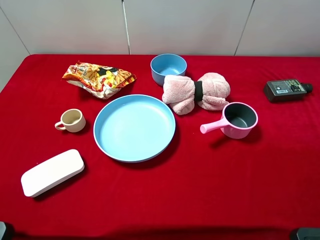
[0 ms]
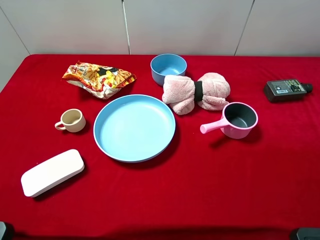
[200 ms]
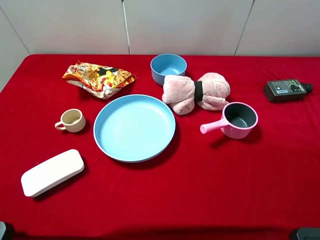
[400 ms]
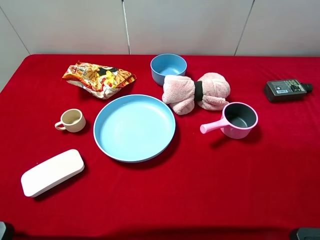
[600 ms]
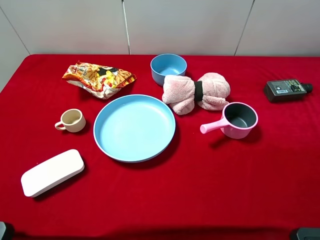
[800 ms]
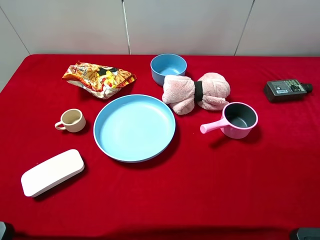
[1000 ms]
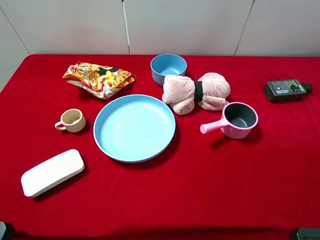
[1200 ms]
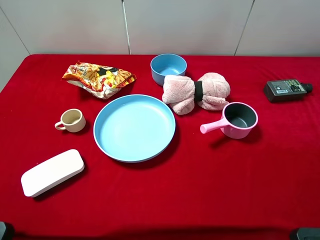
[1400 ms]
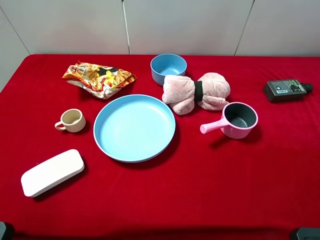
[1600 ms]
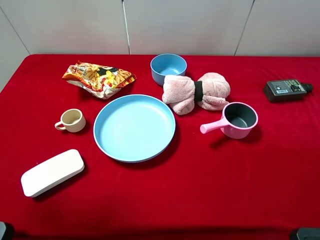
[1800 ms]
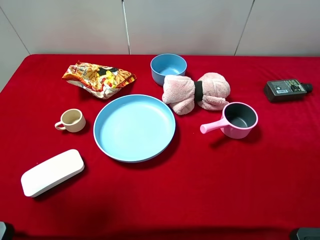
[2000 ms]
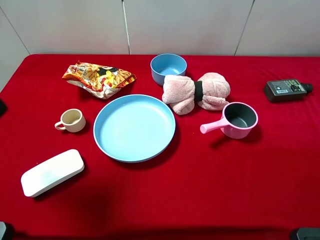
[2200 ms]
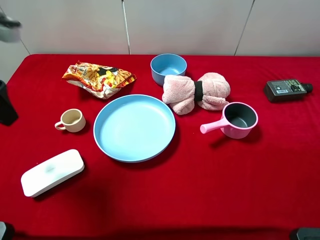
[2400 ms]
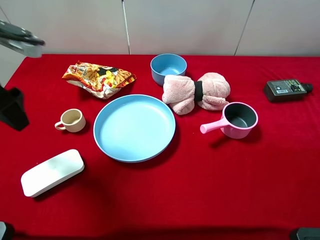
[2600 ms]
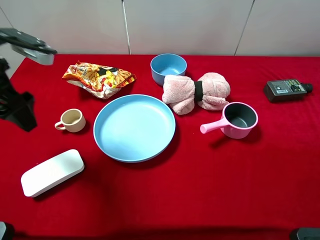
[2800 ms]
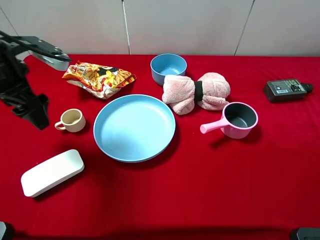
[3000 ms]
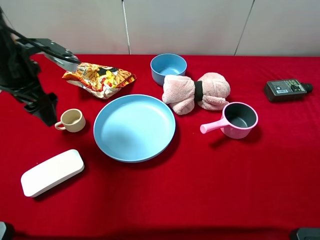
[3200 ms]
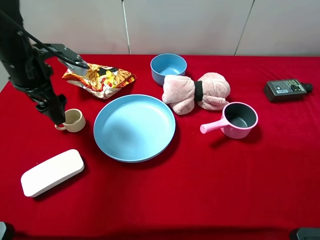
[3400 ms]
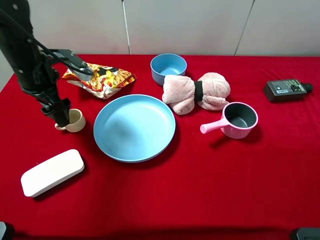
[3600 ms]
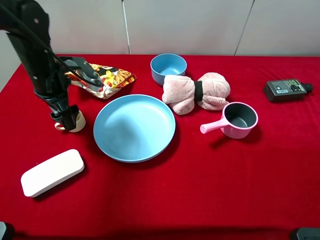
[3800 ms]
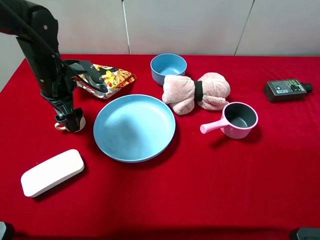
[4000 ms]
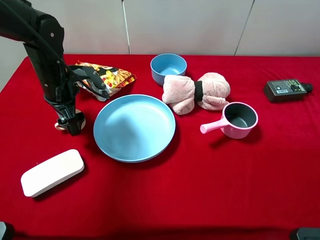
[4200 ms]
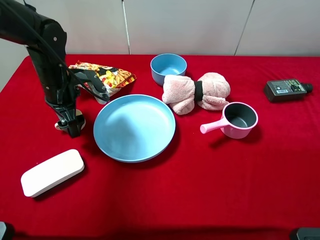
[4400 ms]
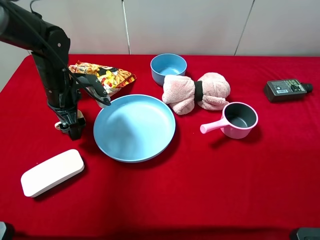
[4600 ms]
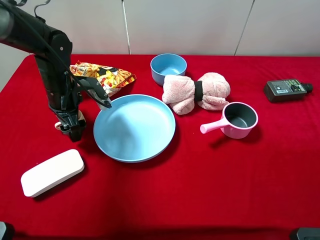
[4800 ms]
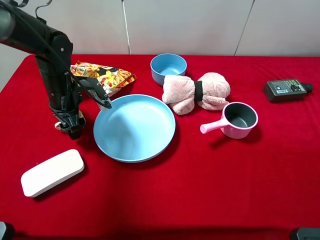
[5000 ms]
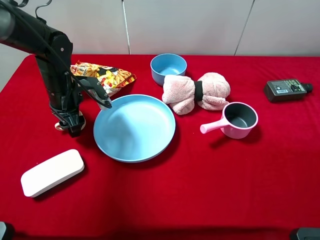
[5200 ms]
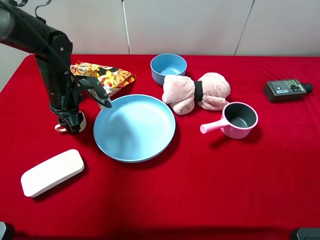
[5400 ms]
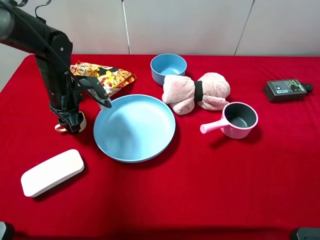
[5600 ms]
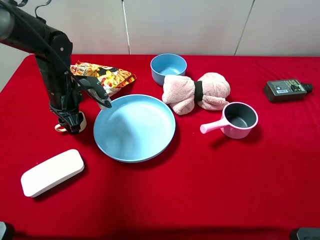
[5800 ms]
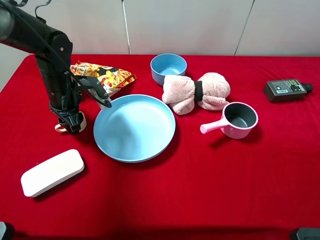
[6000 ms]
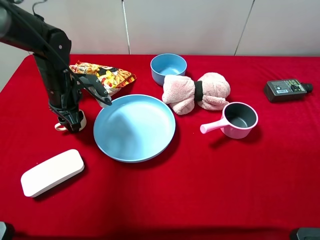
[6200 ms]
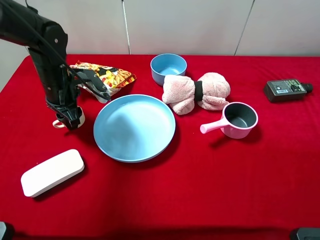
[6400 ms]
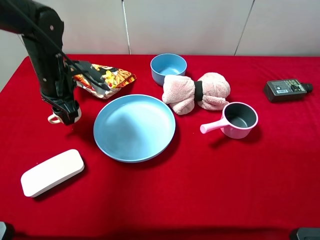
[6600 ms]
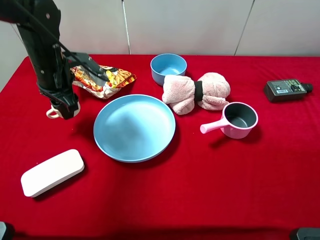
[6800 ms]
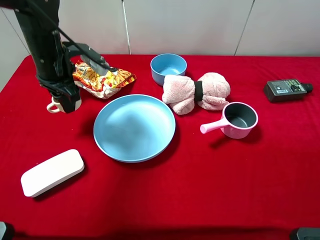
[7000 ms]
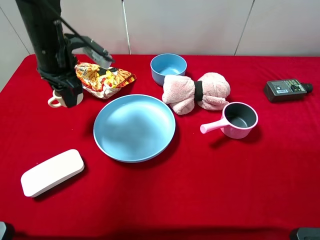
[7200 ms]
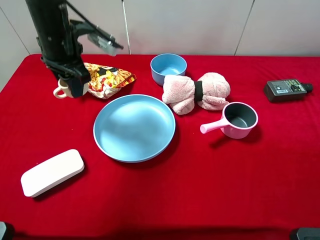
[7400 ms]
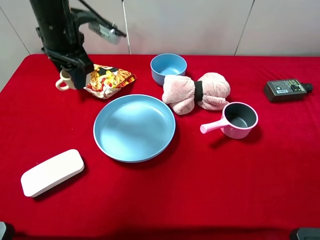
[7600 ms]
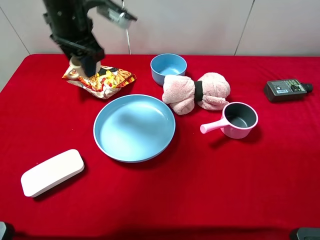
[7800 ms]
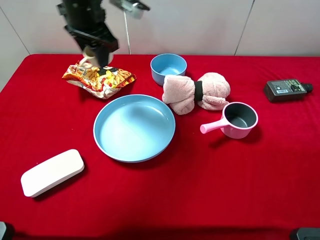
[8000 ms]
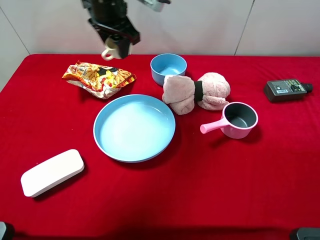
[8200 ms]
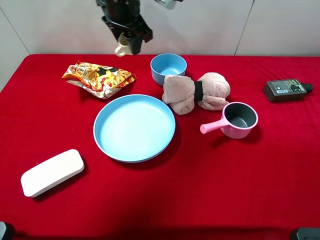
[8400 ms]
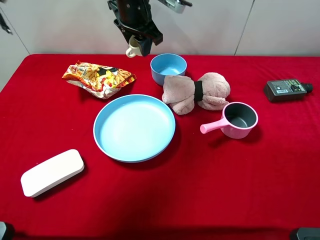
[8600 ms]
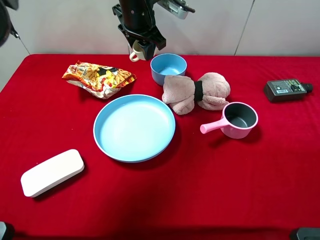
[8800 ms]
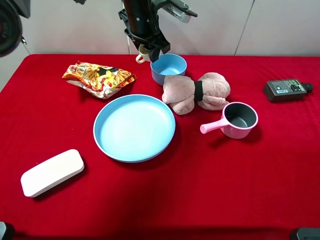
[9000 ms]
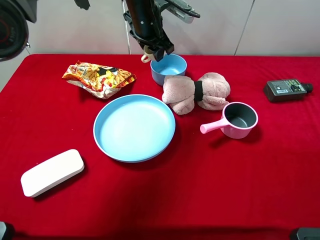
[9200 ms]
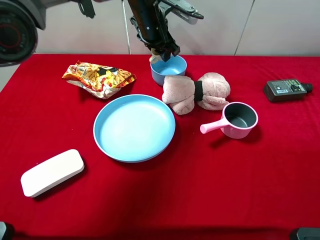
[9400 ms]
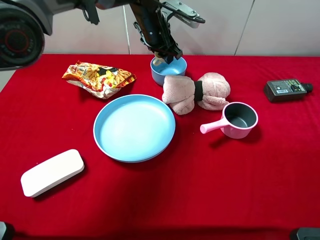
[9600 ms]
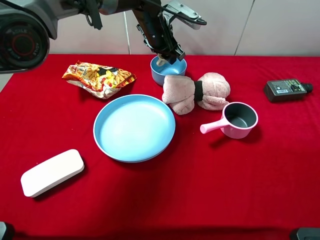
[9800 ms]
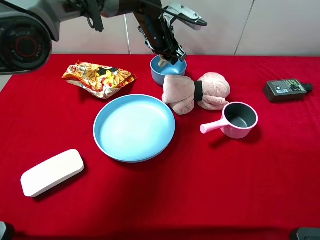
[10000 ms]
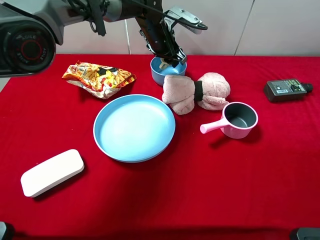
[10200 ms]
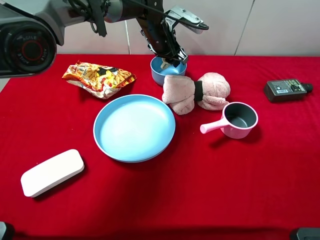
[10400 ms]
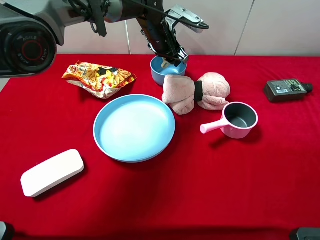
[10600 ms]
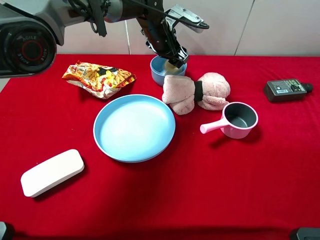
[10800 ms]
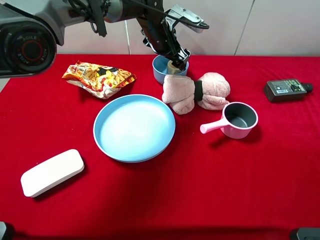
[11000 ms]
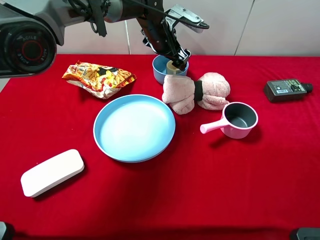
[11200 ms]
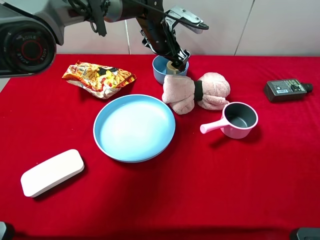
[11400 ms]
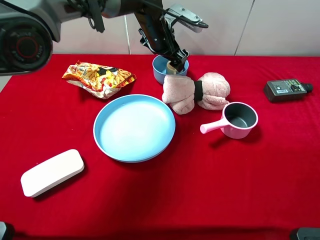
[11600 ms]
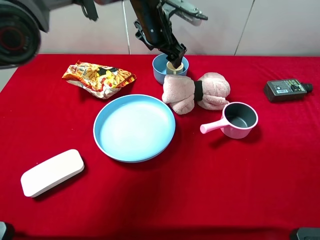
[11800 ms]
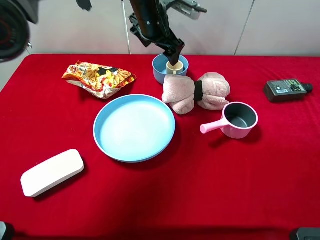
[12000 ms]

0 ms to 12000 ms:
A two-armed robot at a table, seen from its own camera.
Task of the whole recording: pick up an item with a gripper and place it in a random container on the desktop.
1600 ms to 3000 ms: The left gripper moves forward and downward, some 25 cm.
3000 ms to 4400 ms: The left gripper travels downward by about 10 cm.
4400 ms to 6000 ms: The left gripper closes up.
6000 ms to 7600 ms: The left gripper moves upward, about 15 cm.
7600 ms to 9000 ms: The left gripper shifts about 15 cm to the right and forward.
9000 ms to 10400 ms: The left gripper goes about 5 cm downward.
10400 ms to 12000 ms: The left gripper travels upward by approximately 5 cm, and opens.

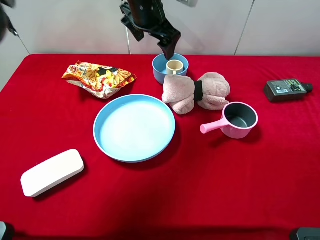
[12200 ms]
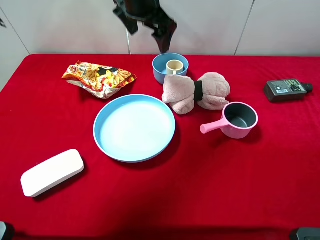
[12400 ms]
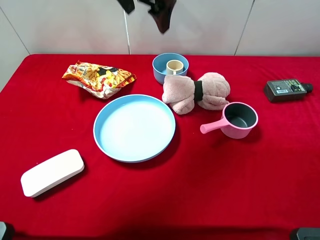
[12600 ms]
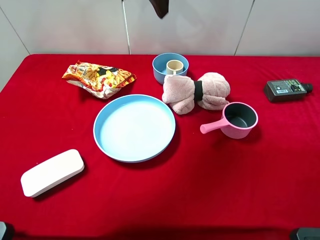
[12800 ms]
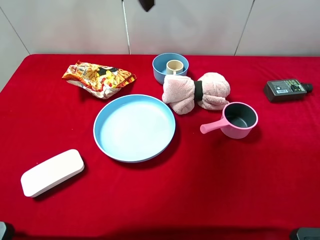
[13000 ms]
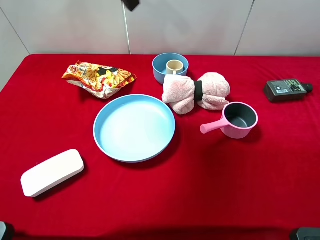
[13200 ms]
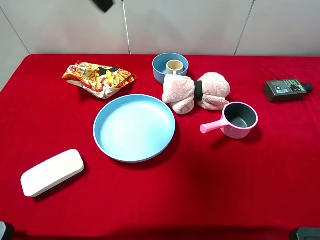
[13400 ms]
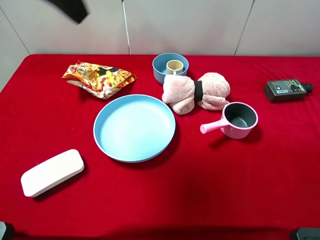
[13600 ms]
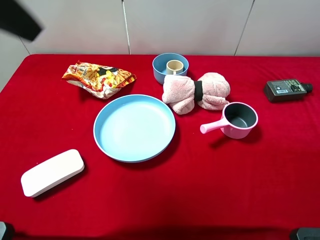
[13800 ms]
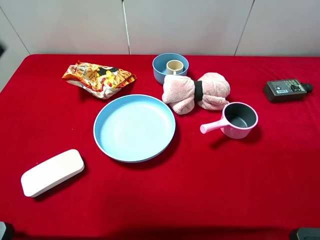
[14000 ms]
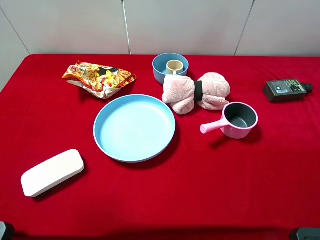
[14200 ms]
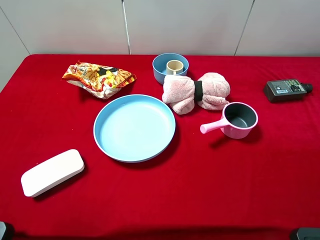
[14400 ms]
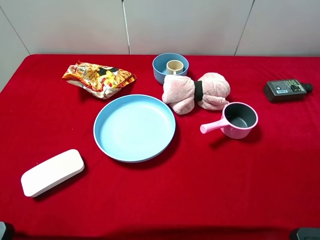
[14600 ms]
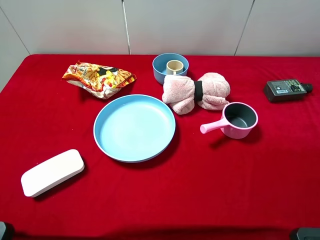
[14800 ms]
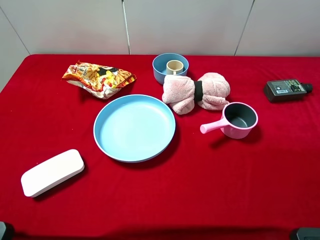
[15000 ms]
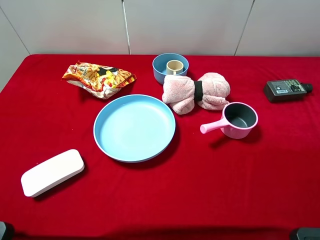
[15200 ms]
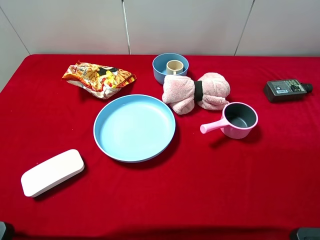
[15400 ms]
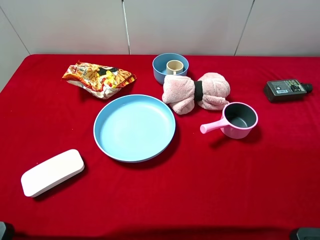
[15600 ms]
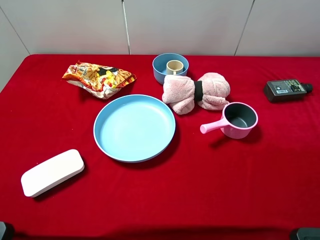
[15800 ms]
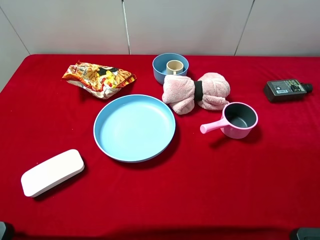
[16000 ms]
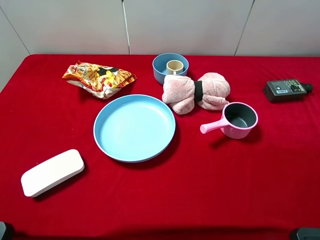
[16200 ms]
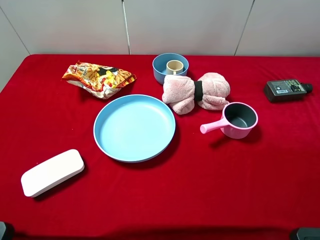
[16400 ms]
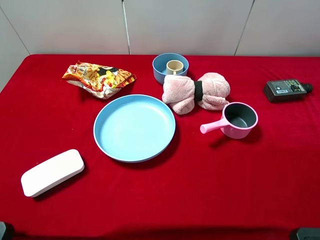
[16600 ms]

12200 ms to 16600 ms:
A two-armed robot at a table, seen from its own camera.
Task of the whole recording: pick up an item with a gripper and place it in a random container on the desktop.
12200 ms to 13600 ms: The left gripper travels backward, upward and to the left by roughly 30 cm.
13600 ms to 15200 ms: The left gripper is displaced backward, to the left and downward by some 30 cm.
